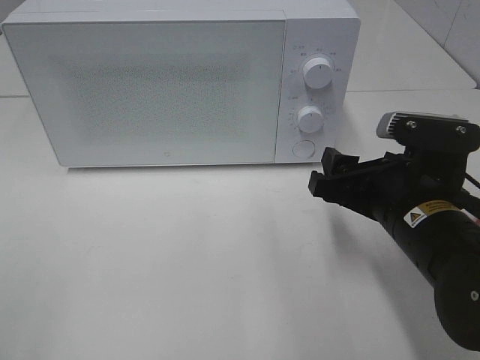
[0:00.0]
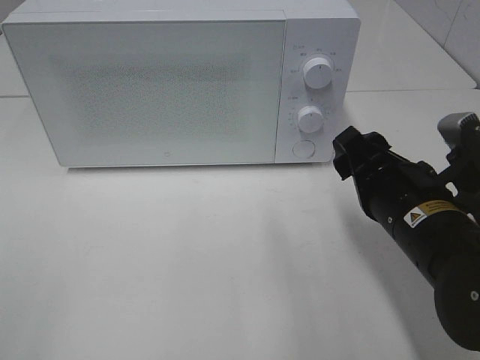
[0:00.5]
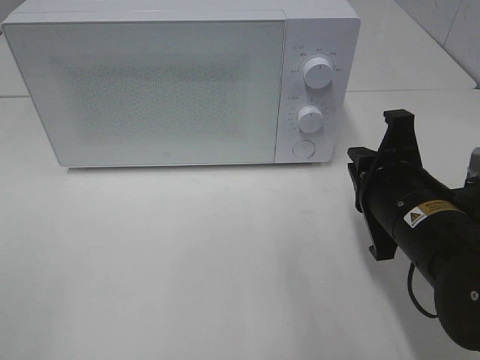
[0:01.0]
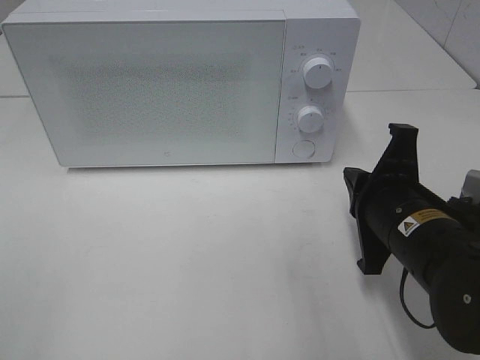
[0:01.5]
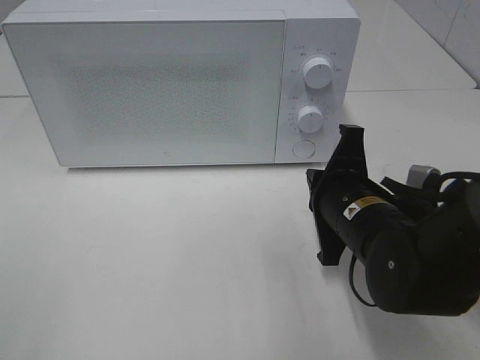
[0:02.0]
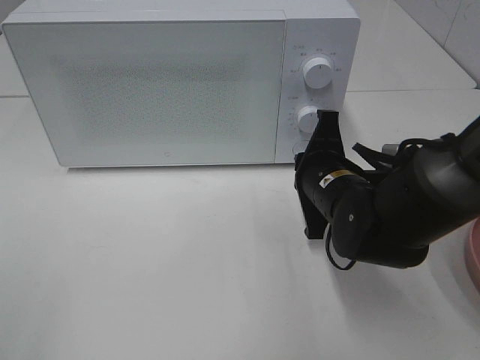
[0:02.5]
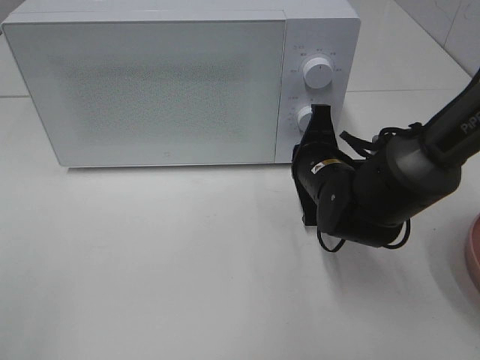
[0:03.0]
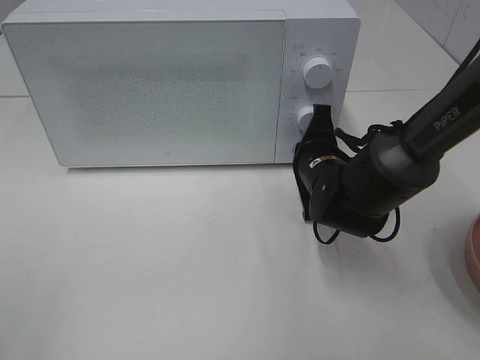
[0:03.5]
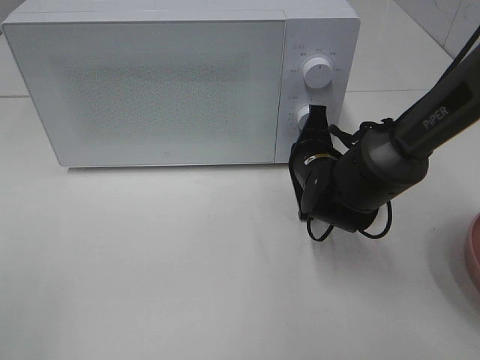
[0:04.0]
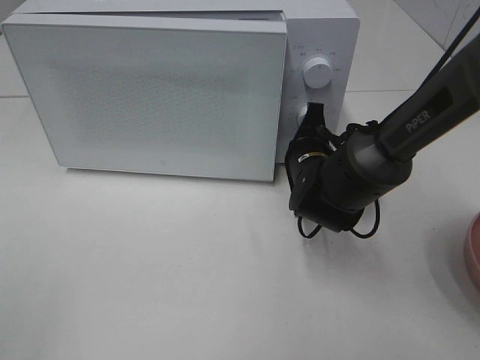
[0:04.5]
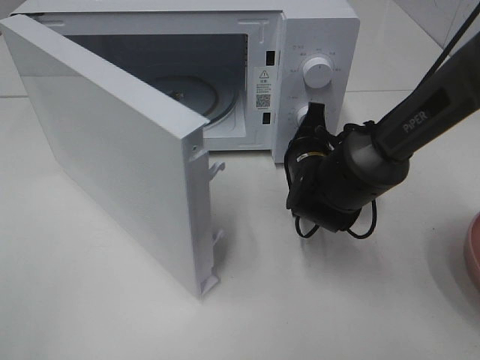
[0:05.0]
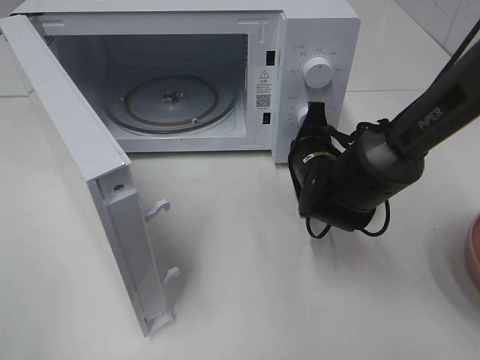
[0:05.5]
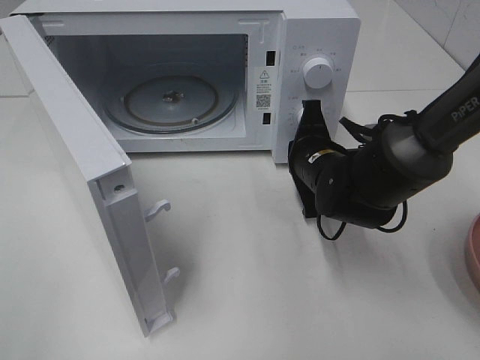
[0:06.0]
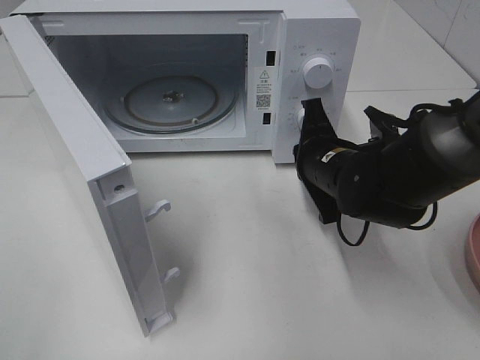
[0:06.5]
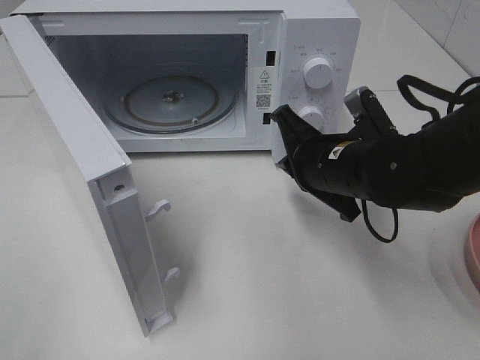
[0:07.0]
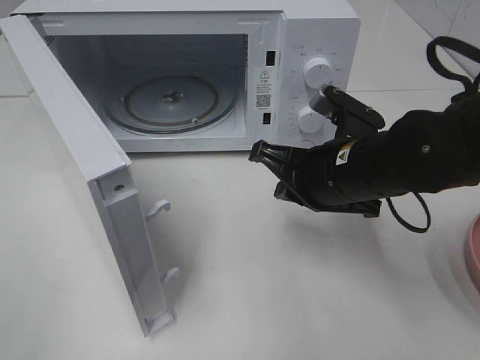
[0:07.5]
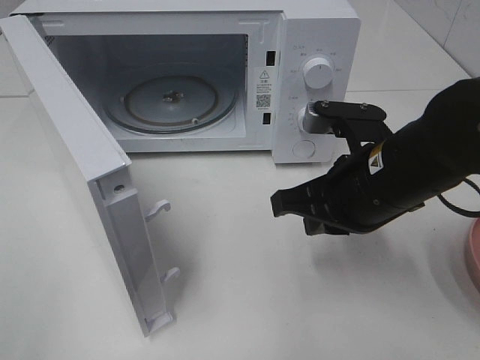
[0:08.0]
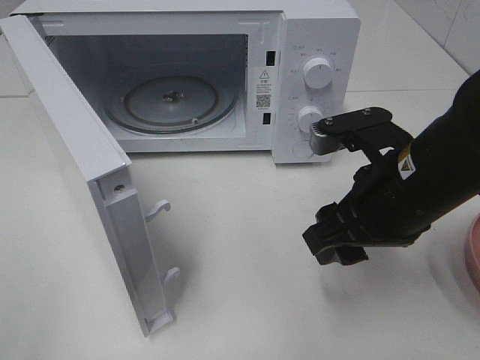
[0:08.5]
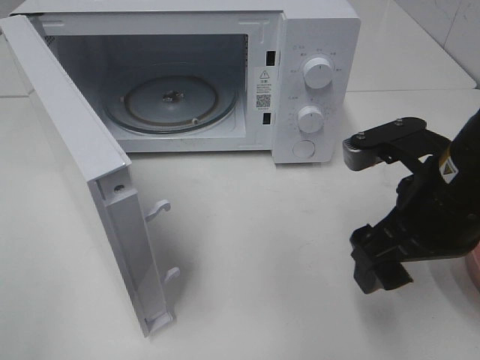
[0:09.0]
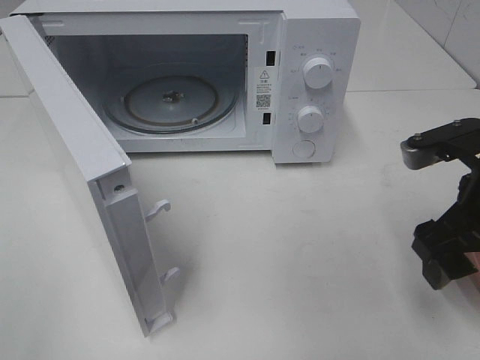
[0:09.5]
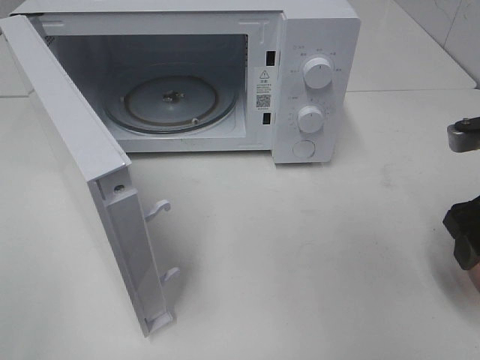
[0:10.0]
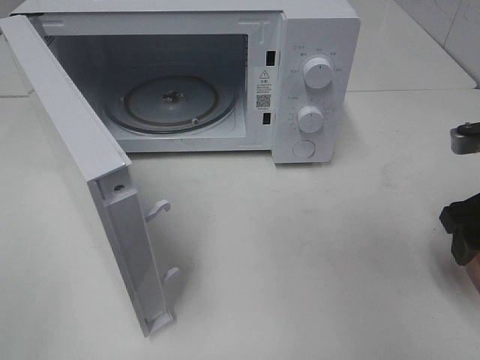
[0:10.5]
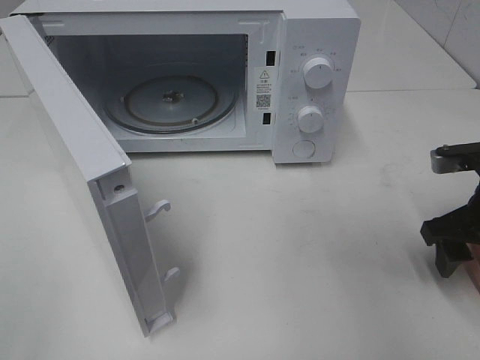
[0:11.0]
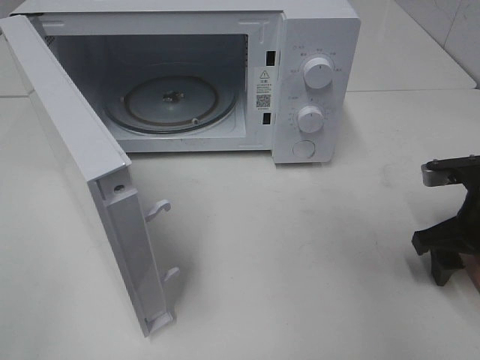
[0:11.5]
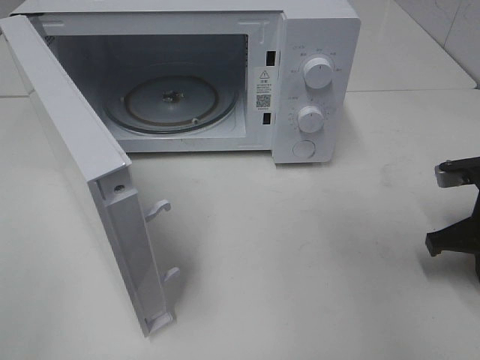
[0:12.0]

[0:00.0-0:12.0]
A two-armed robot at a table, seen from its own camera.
Task of the whole recording: Heat the burger.
Step, 0:00.0 to 0:06.0: Right hand: press the switch.
0:00.0 to 0:02.0: The right gripper ends up roughly 5 cm from where it was, and closes.
0:02.0 to 0:04.0: The right gripper moves forward, about 10 cm.
0:06.0 to 0:08.0: The right gripper goes some 15 cm backward and upward.
0:08.0 to 0:10.0: The right gripper shifts roughly 15 cm to the right, and opens.
0:10.0 to 0:12.0: The right gripper is displaced downward by some 10 cm, and closes.

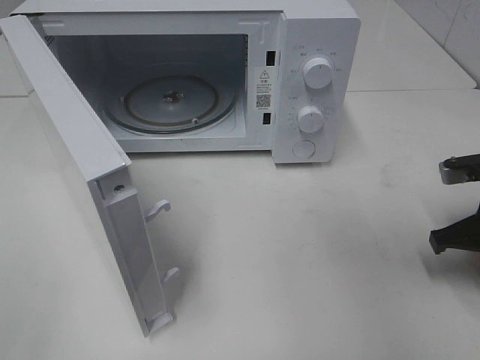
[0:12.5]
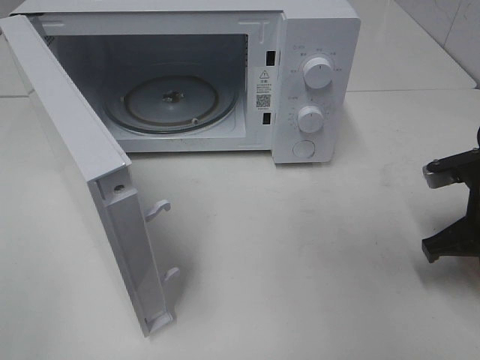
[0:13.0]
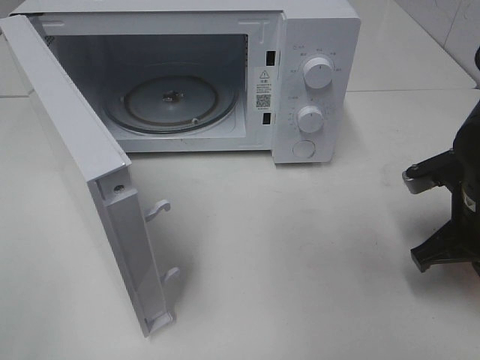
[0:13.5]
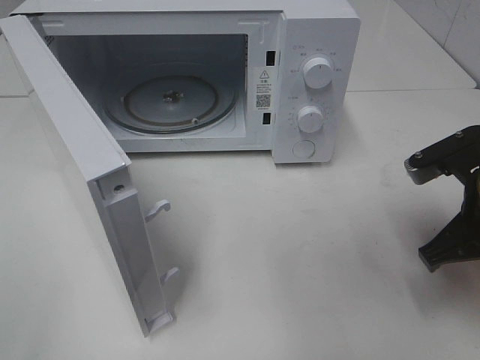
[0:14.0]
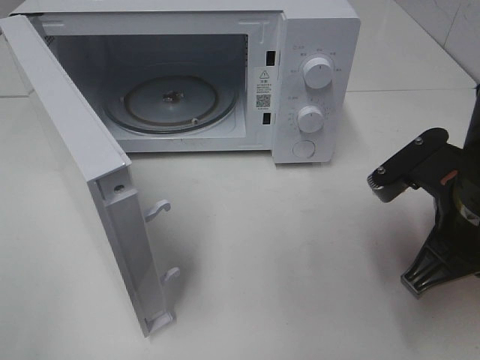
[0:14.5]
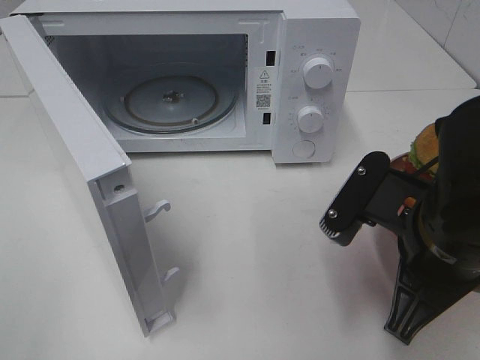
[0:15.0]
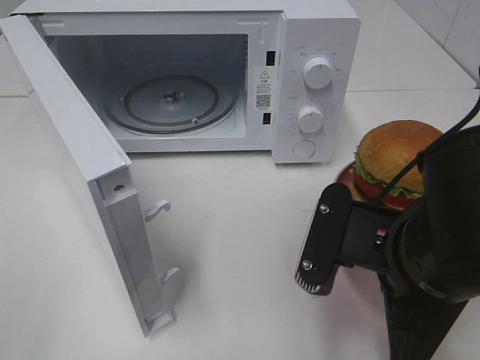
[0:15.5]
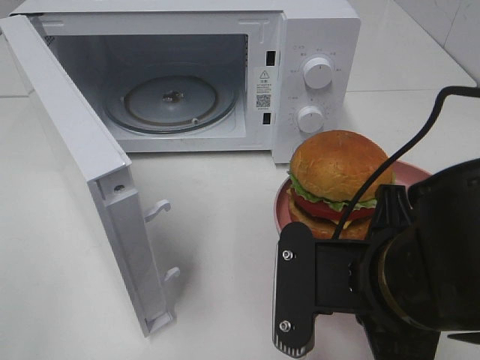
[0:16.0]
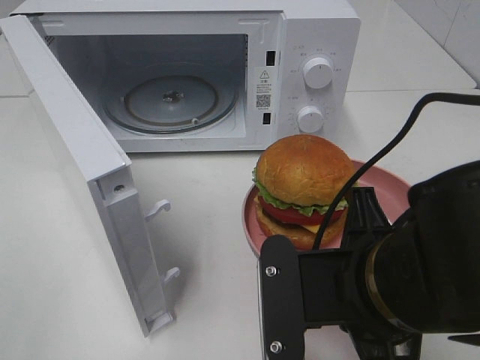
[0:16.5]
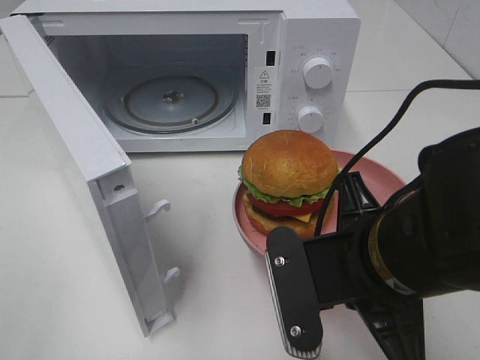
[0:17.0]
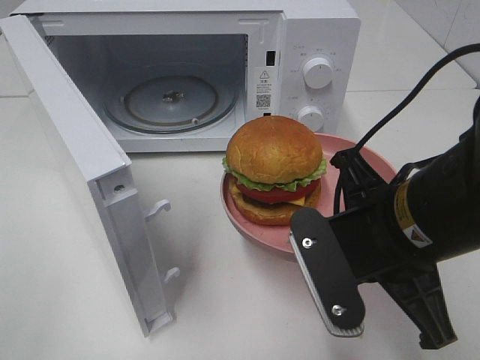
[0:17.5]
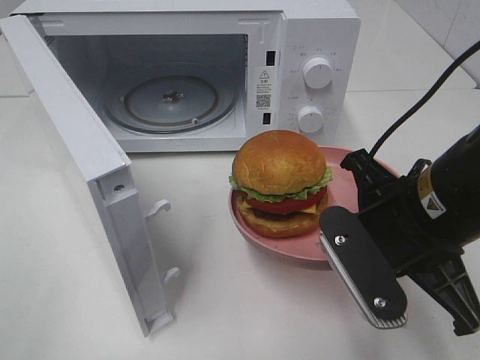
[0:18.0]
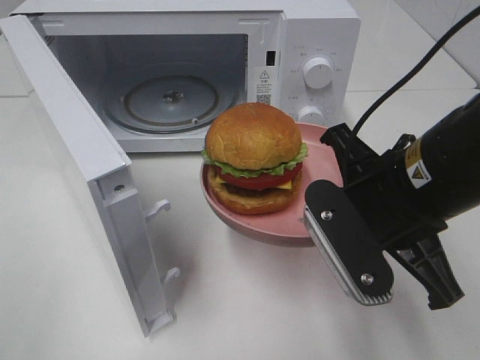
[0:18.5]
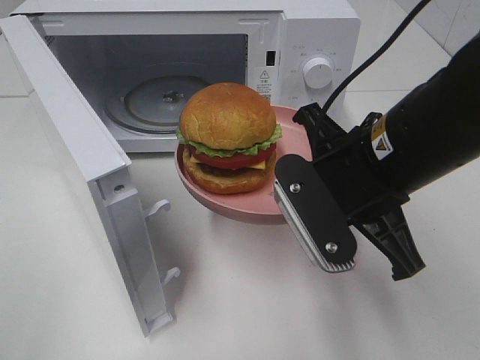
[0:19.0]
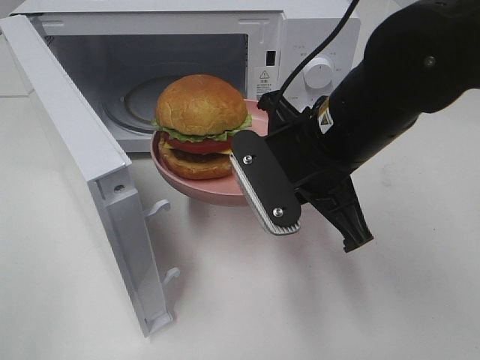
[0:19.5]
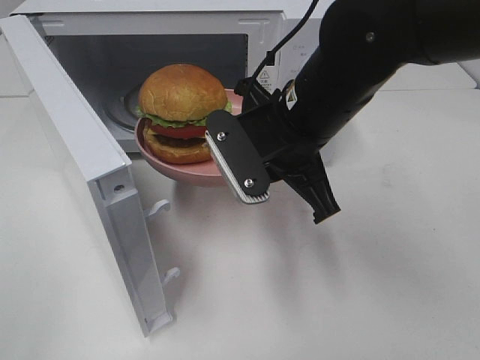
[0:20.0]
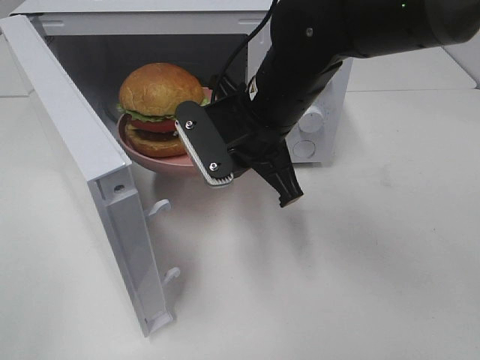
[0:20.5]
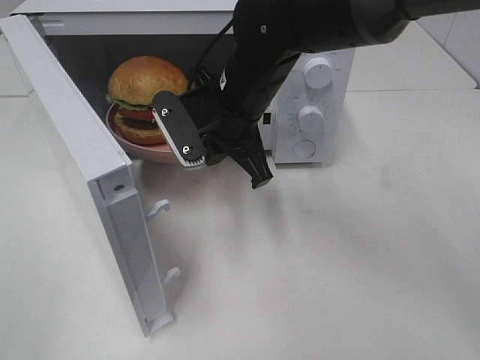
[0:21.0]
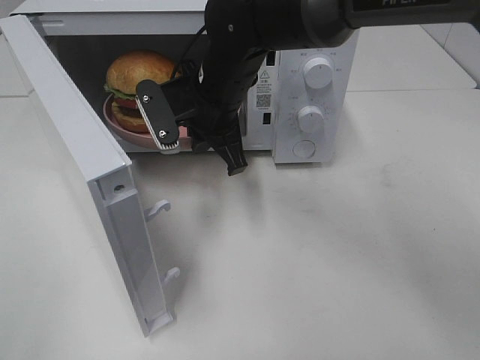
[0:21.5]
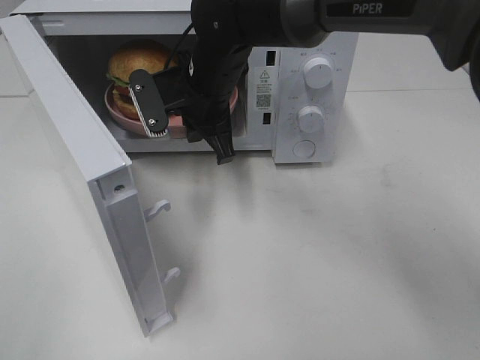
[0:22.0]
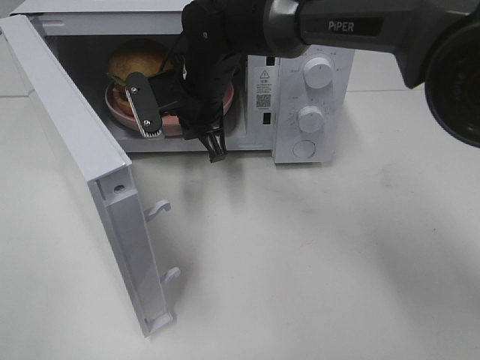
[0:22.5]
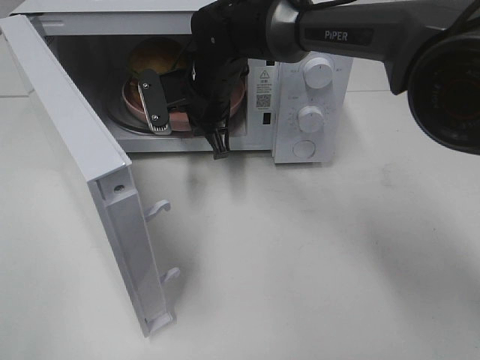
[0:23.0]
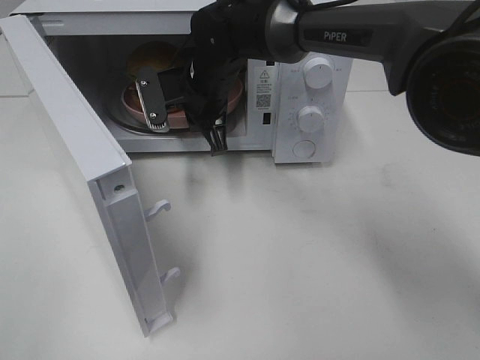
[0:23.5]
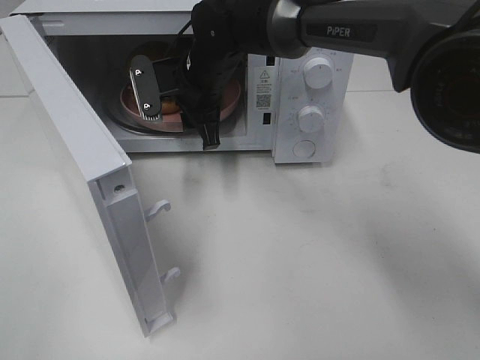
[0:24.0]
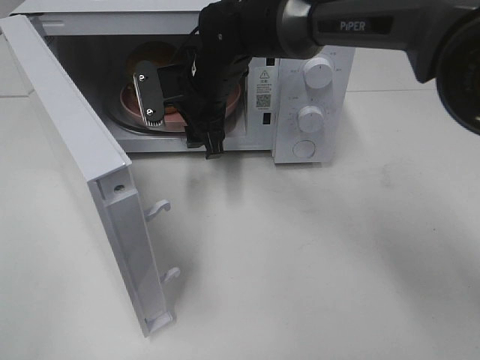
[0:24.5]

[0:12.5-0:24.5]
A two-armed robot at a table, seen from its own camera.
Task of the whole recording: Heat the burger.
0:12.5 to 0:14.5: The right gripper shifts about 15 cm to the left, backward and upward.
0:14.5 to 0:16.5: The right gripper heads to the left and backward, covering approximately 10 cm.
0:16.5 to 0:18.5: The right gripper shifts some 5 cm forward.
0:18.5 to 0:20.5: The right gripper goes approximately 15 cm forward and to the left.
0:20.5 to 0:22.5: The right gripper heads forward and to the left, covering approximately 10 cm.
0:22.5 to 0:24.5: The right gripper opens up.

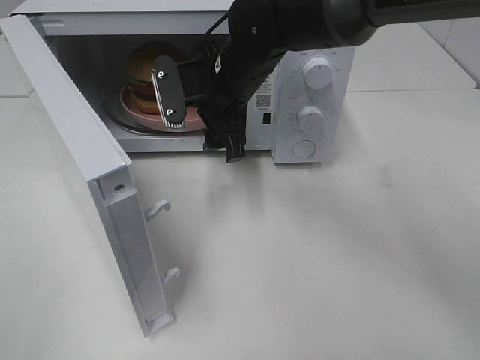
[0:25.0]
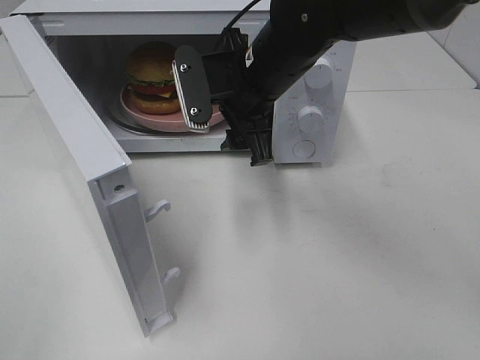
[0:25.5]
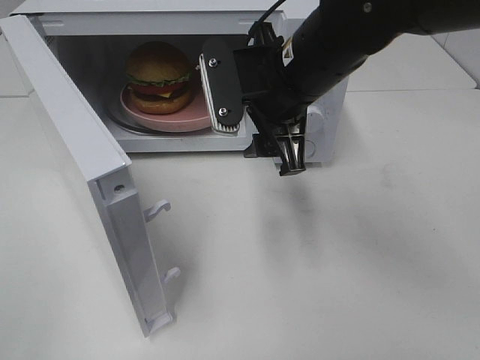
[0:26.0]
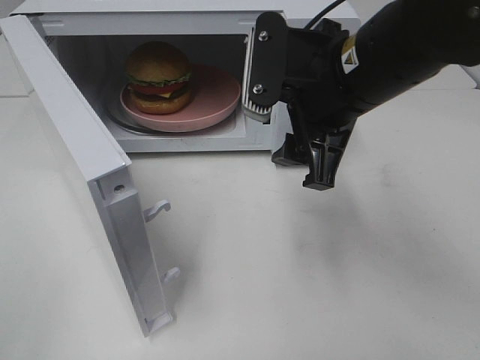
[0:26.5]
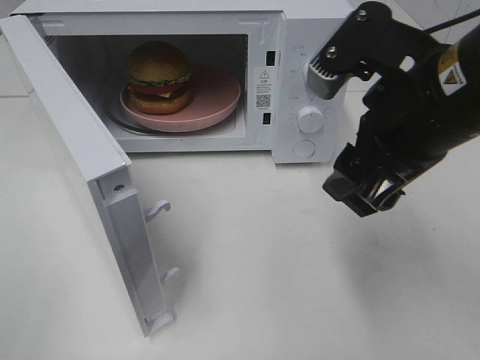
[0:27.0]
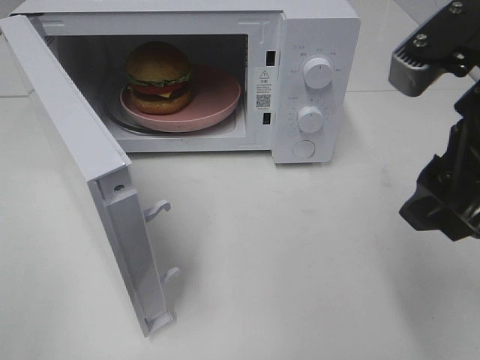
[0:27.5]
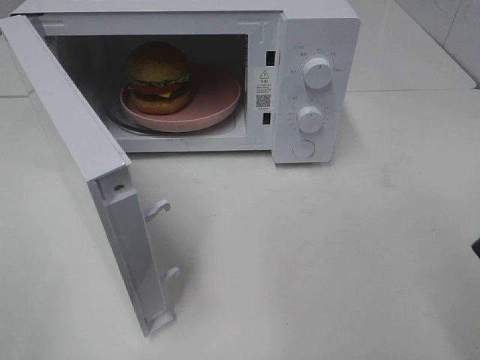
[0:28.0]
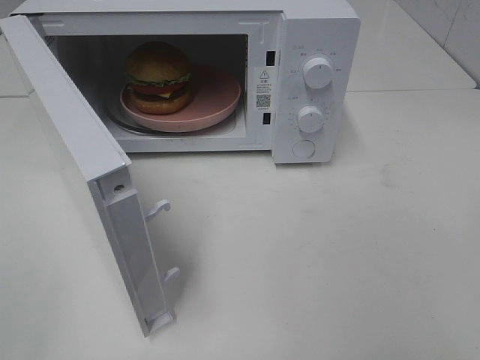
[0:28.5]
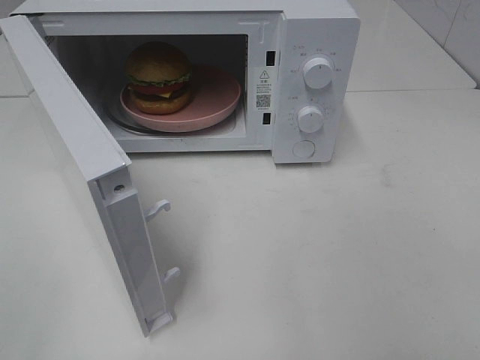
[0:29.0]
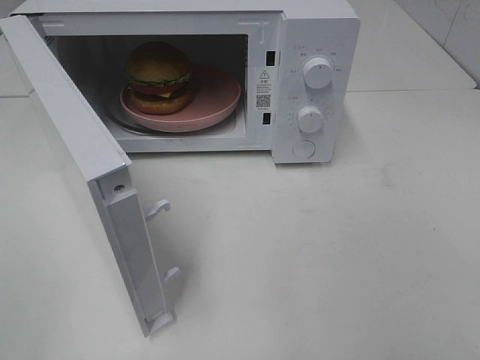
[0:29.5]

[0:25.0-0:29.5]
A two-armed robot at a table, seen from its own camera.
Task of the whole recording: Heat the burger.
0:25.0 to 0:27.0: The right gripper goes roughly 25 cm backward, to the right and upward.
0:27.0 to 0:29.5: The right gripper heads backward and to the right, covering about 25 cm.
